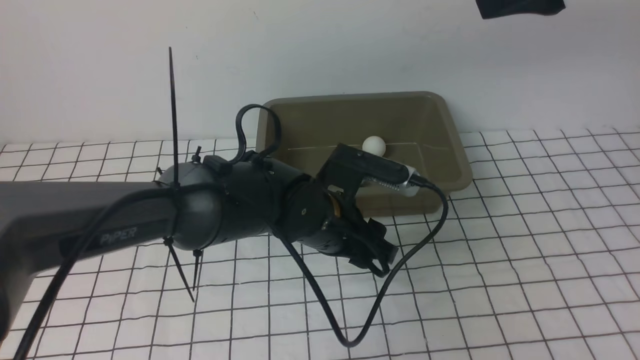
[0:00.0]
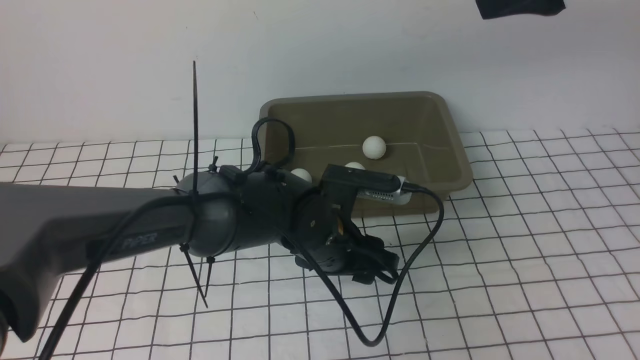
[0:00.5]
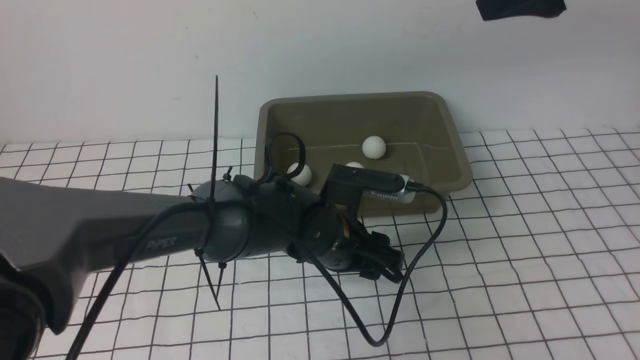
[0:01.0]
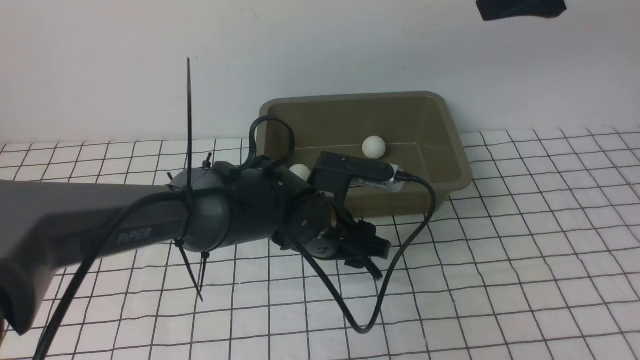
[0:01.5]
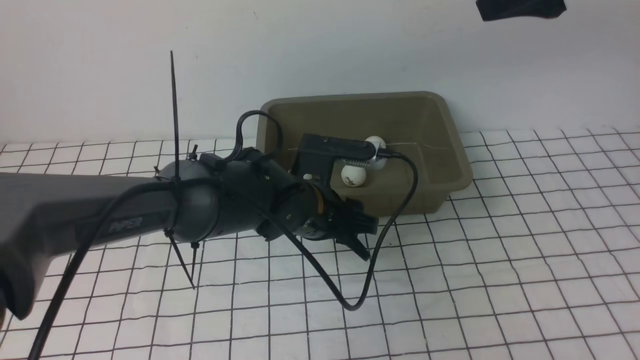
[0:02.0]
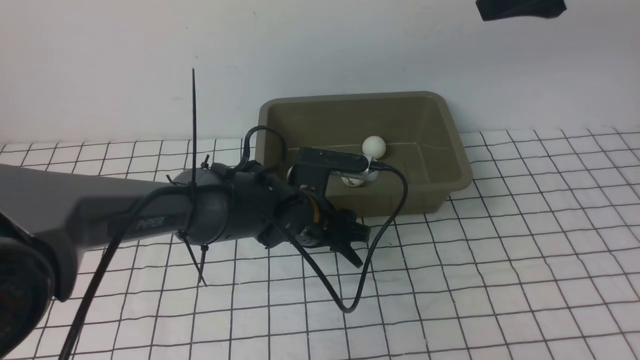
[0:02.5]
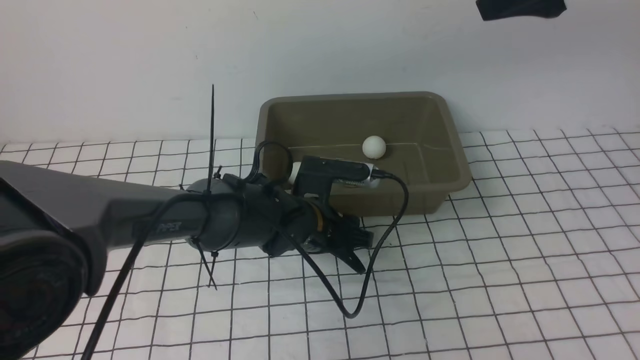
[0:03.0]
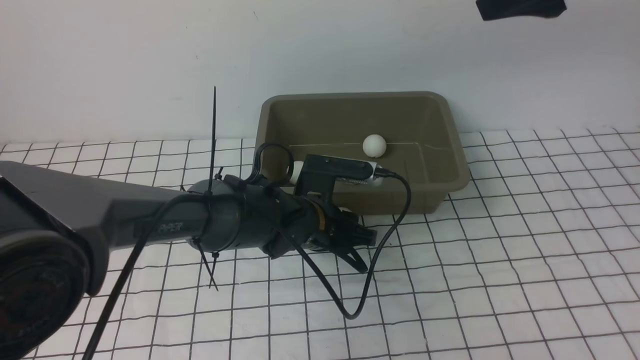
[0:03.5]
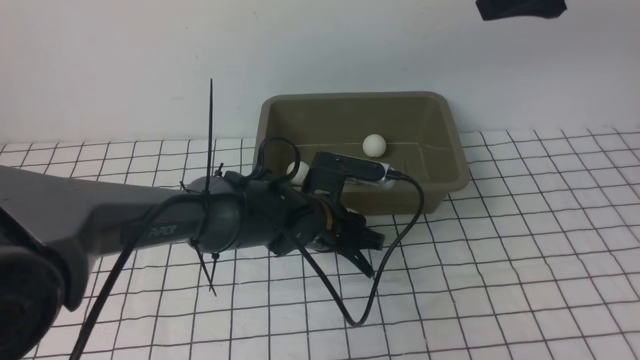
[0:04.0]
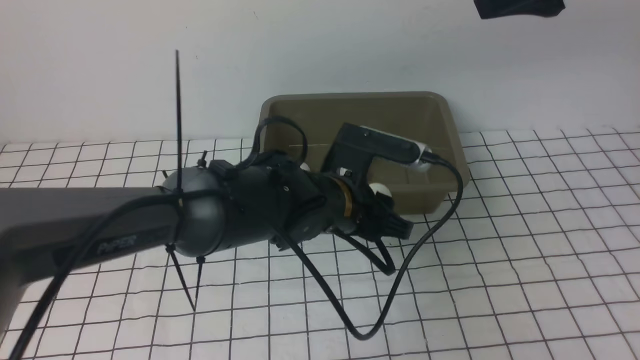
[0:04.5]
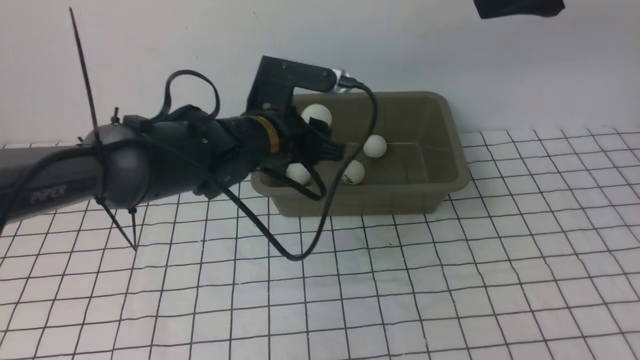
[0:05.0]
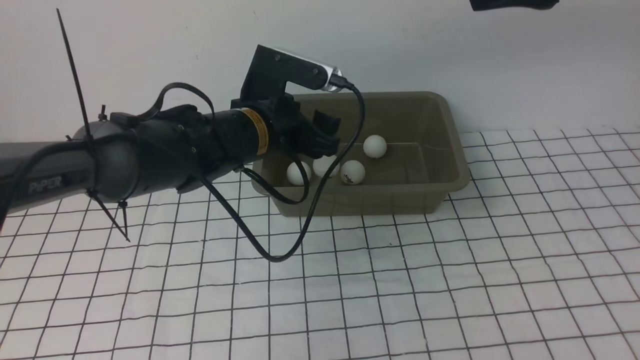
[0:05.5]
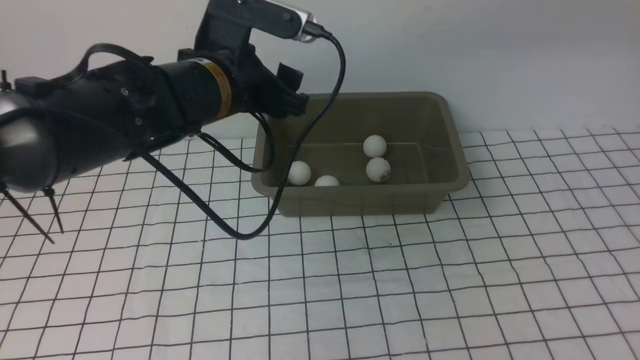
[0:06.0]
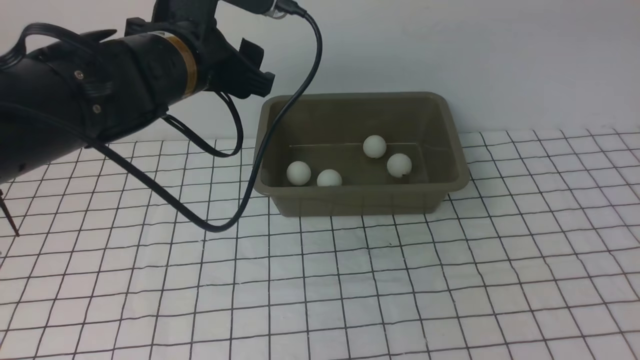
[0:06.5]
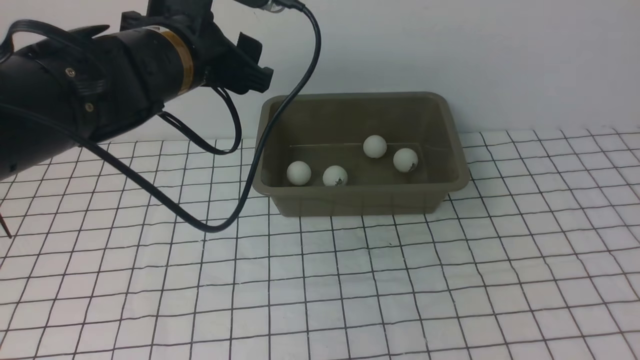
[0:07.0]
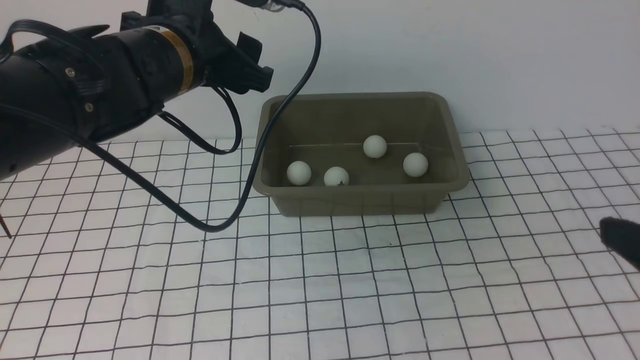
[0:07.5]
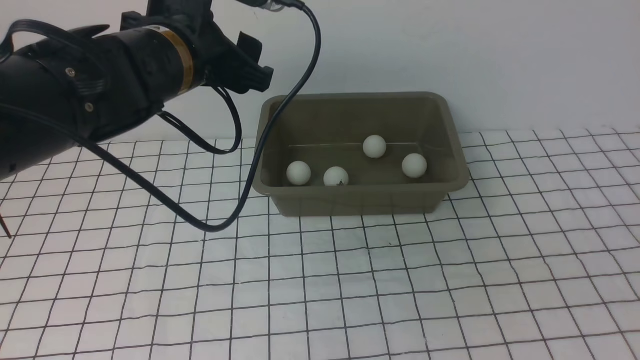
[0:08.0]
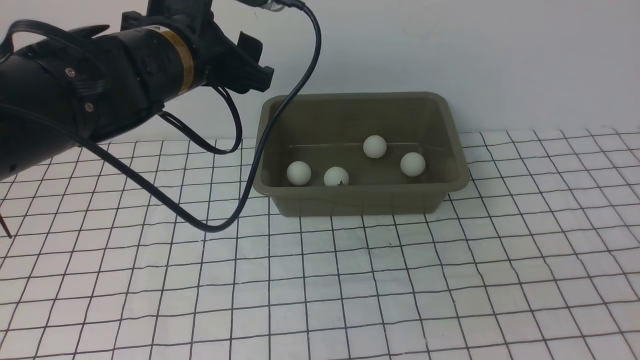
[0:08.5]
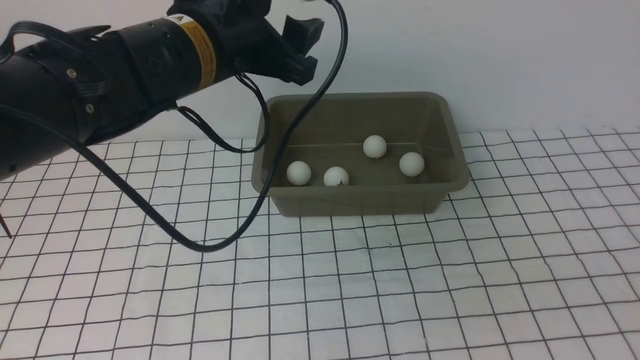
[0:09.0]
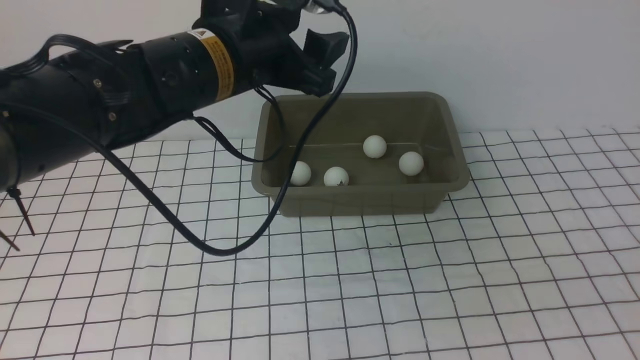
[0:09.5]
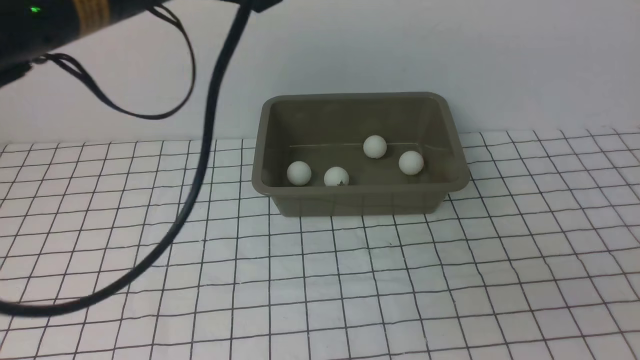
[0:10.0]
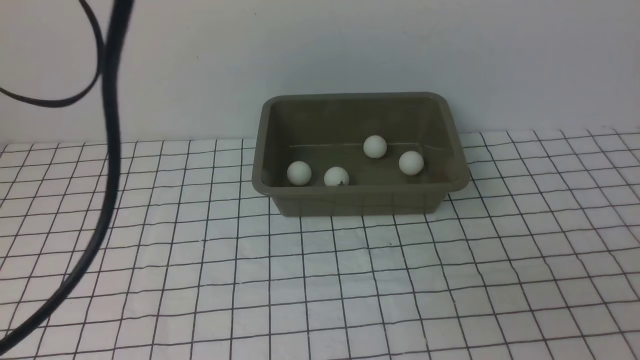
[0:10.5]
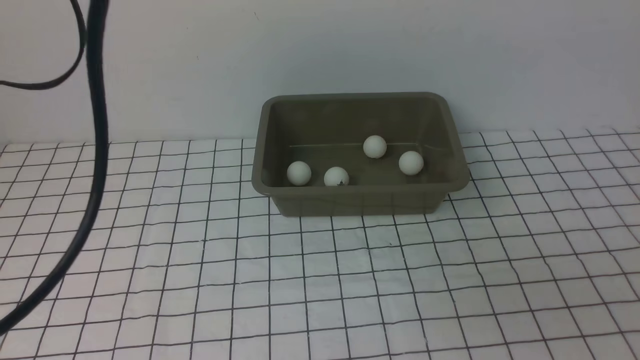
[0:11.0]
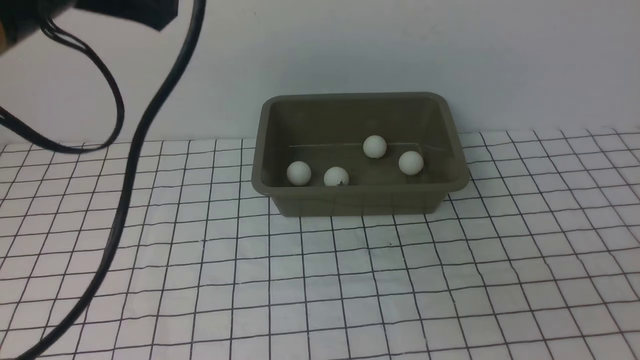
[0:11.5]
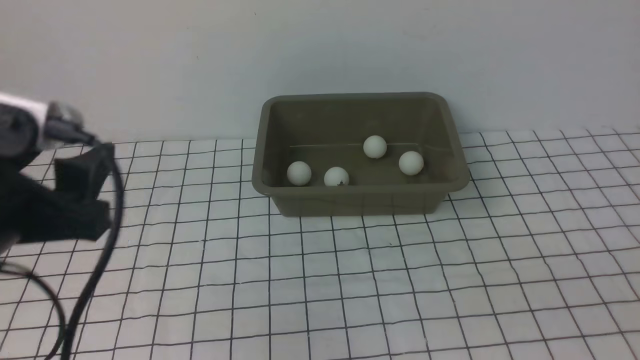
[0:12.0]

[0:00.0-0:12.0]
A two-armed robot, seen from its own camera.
Step, 0:00.0 to 0:04.0: use the left arm to clamp the table tennis ball closest to it.
Step, 0:04.5 to 0:05.5: use the left arm to put the table tennis ball into the box.
0:00.0 to 0:02.0: The grippers stay close to where they were, moving slightly.
0:02.0 to 0:04.0: The left gripper closes.
0:04.0 to 0:06.0: The left gripper is displaced upward and to the left by about 20 cm, and opens up. The right gripper shifts approximately 15 cm upward and backward.
0:06.0 to 0:08.0: The right gripper heads downward and backward, covering approximately 35 cm, and closes up.
0:08.0 to 0:10.0: The left gripper moves upward and backward, about 15 cm.
0:10.0 to 0:12.0: The left gripper shifts about 20 cm downward, backward and to the left.

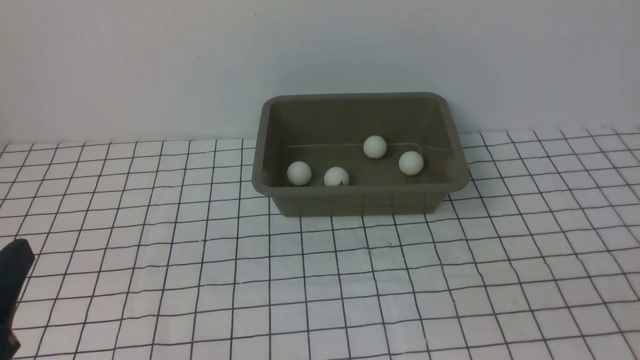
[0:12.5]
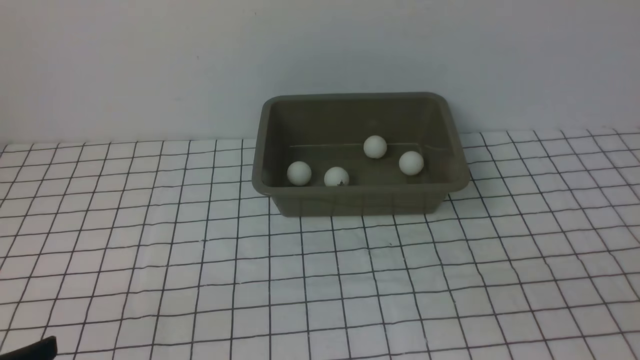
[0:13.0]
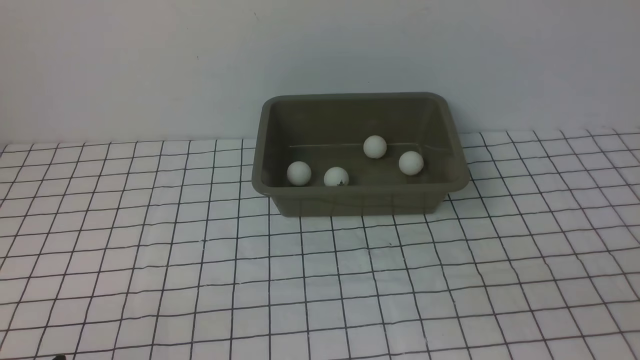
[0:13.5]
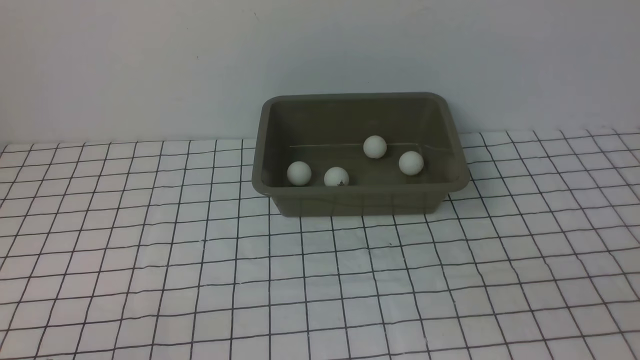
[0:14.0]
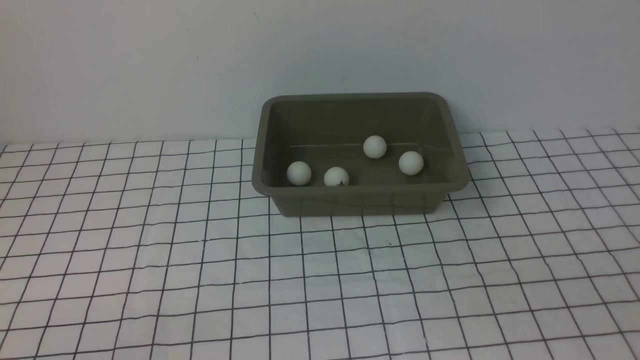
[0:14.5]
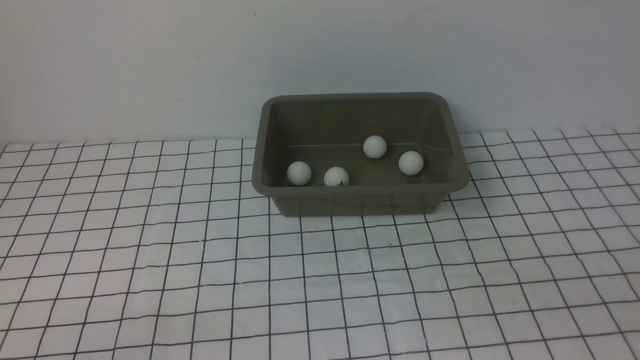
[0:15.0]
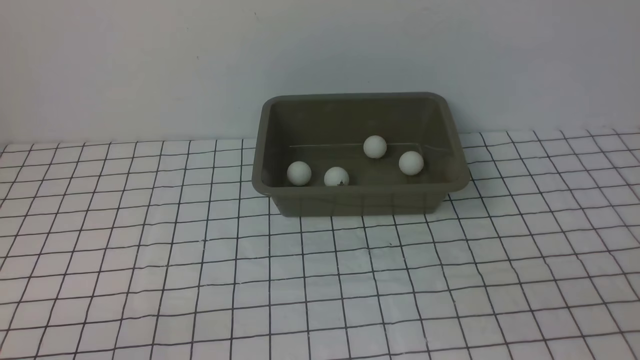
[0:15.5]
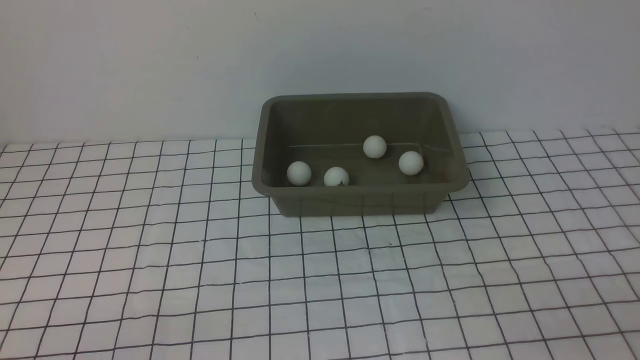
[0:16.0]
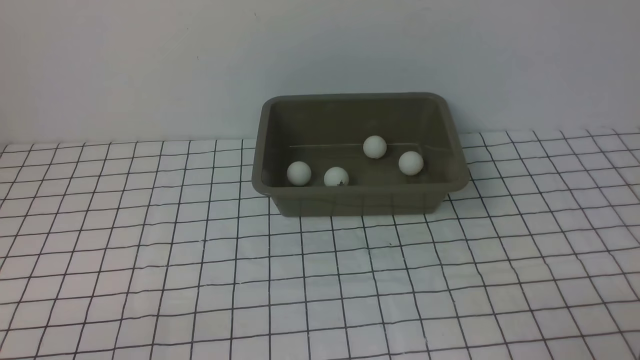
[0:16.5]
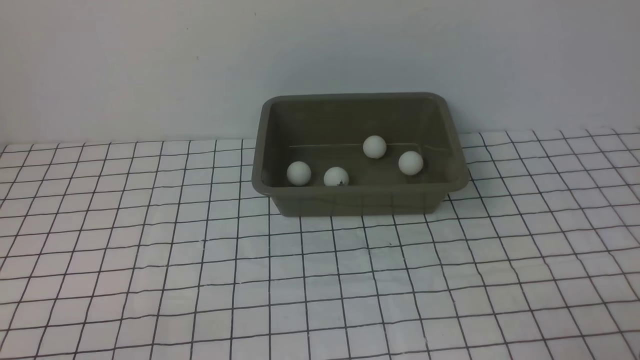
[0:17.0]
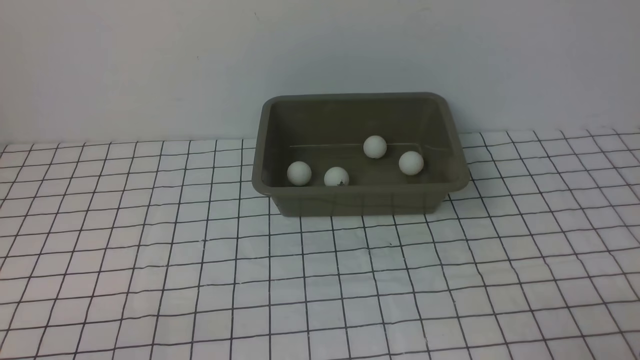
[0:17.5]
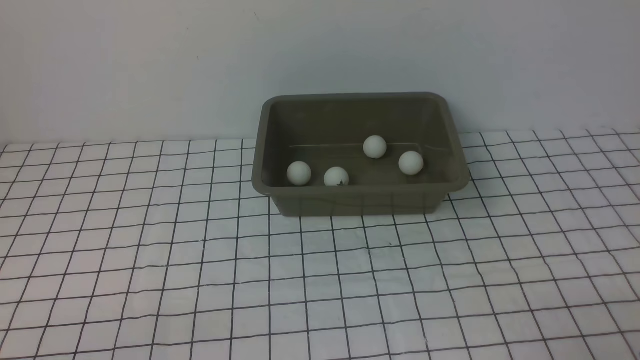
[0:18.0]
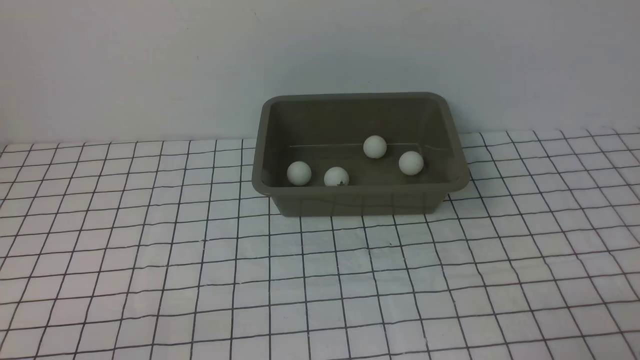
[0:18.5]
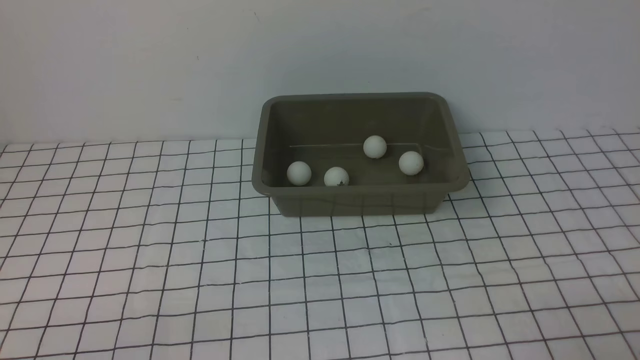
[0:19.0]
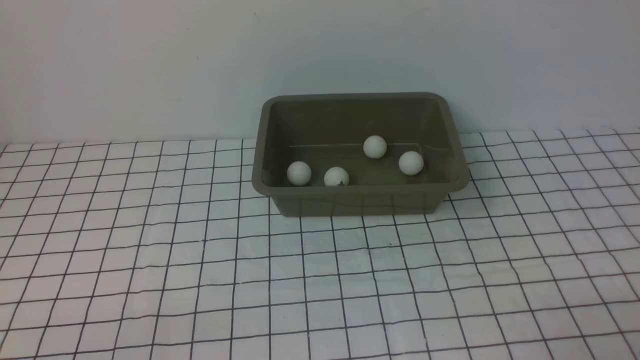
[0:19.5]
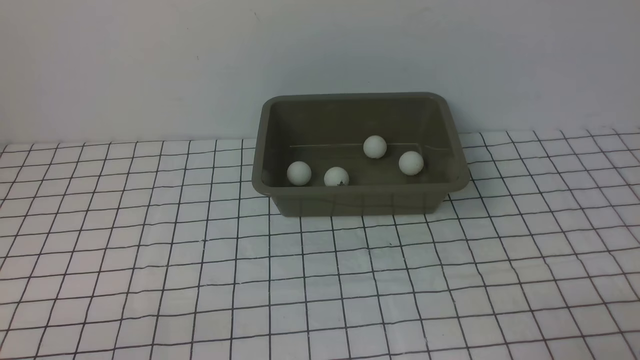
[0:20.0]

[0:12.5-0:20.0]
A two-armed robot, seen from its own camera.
0:12.5 to 0:14.5: The left gripper moves downward, some 10 cm.
0:16.5 to 0:20.0: Both grippers stay put.
